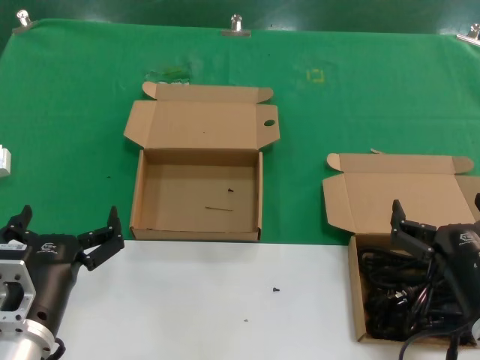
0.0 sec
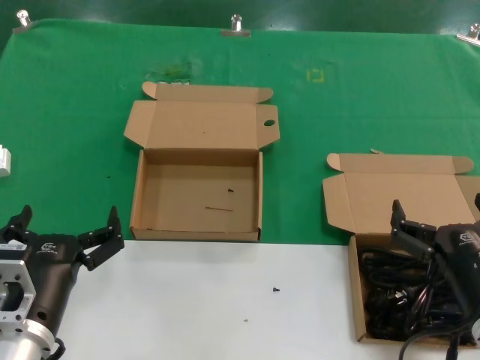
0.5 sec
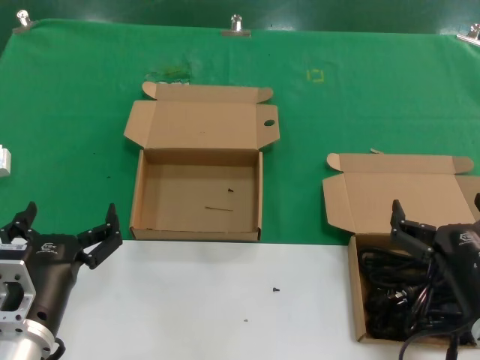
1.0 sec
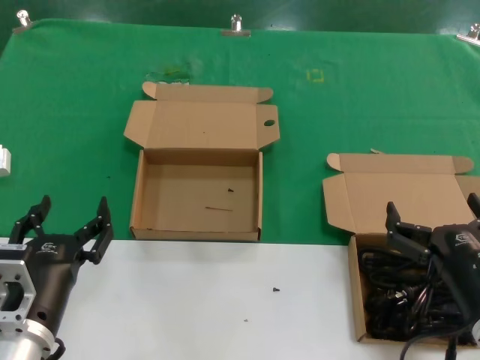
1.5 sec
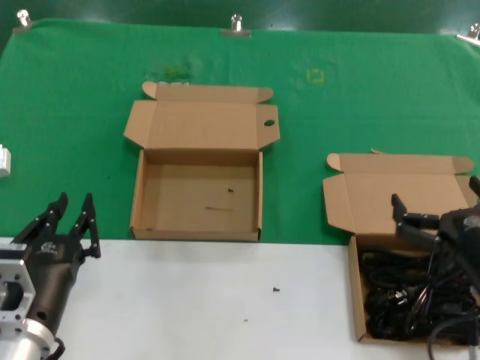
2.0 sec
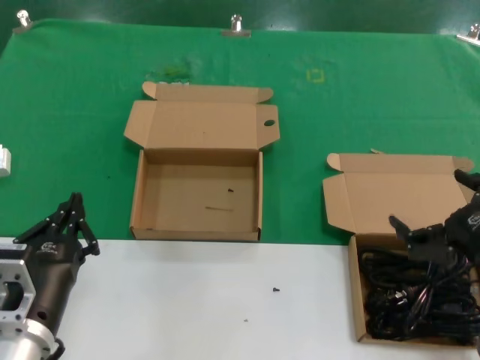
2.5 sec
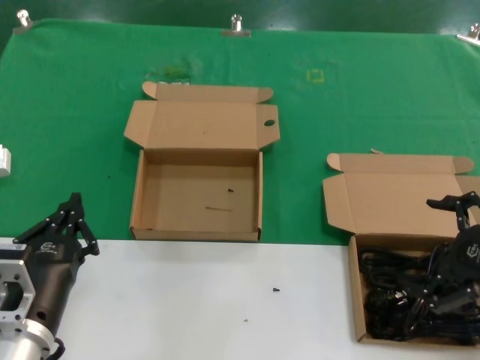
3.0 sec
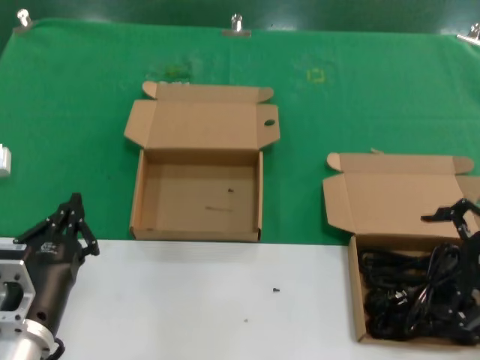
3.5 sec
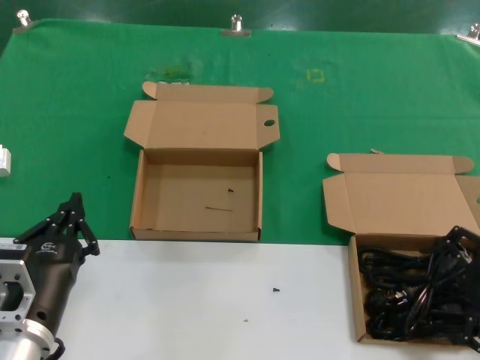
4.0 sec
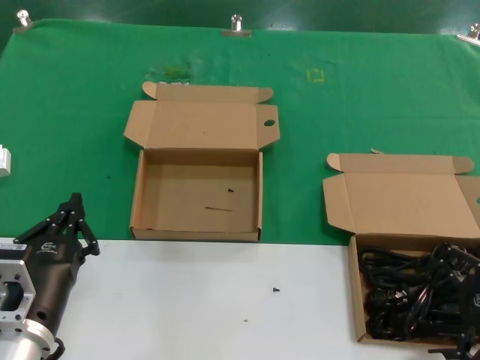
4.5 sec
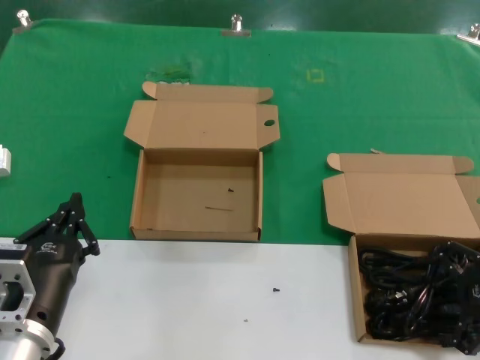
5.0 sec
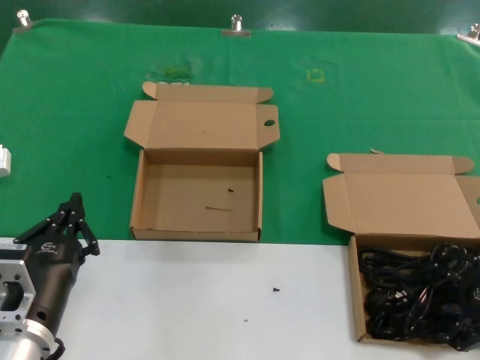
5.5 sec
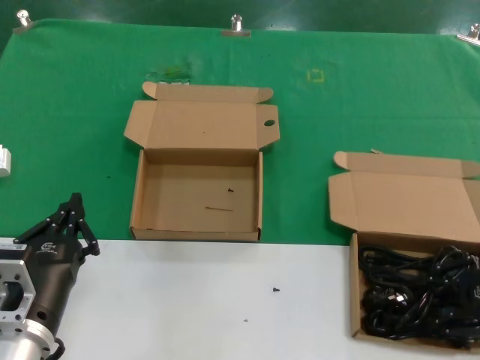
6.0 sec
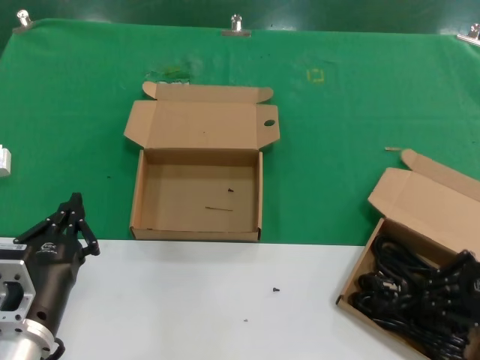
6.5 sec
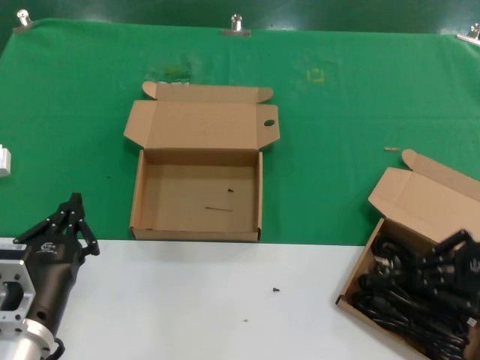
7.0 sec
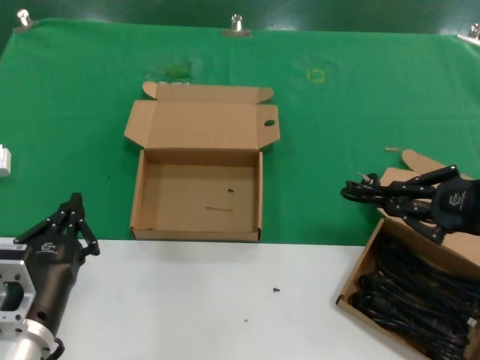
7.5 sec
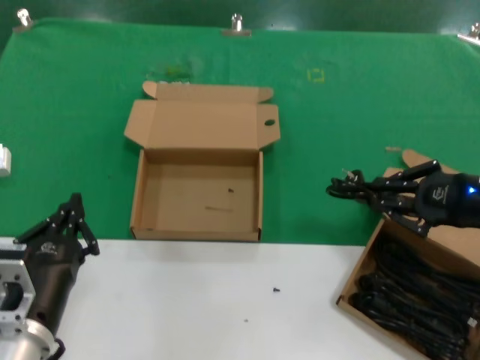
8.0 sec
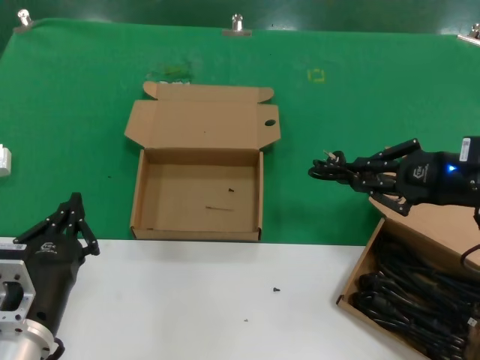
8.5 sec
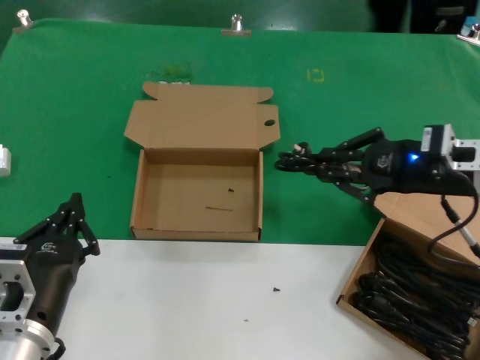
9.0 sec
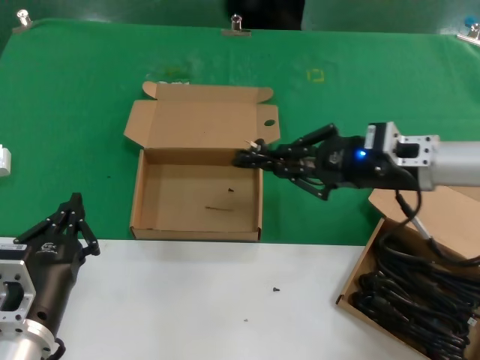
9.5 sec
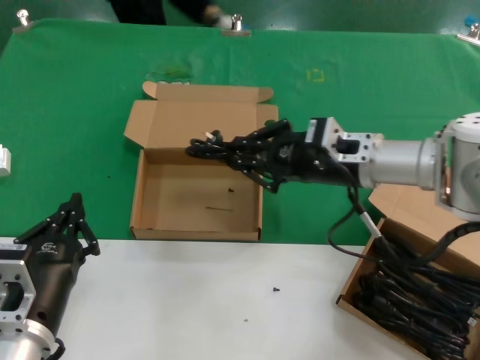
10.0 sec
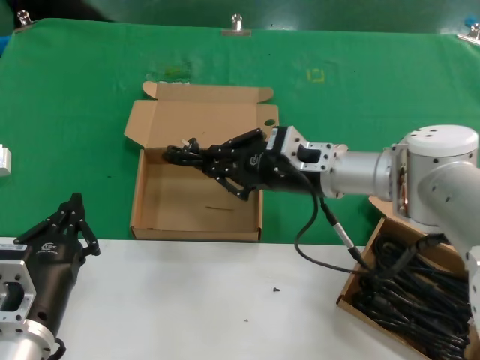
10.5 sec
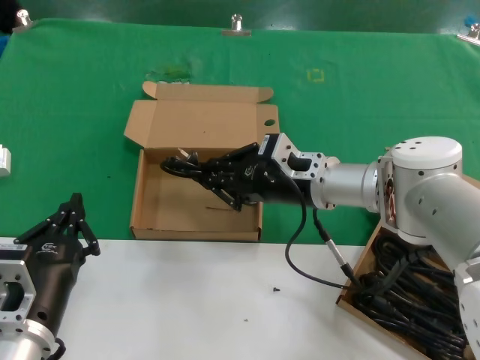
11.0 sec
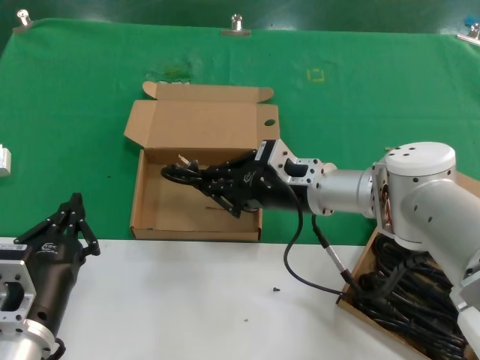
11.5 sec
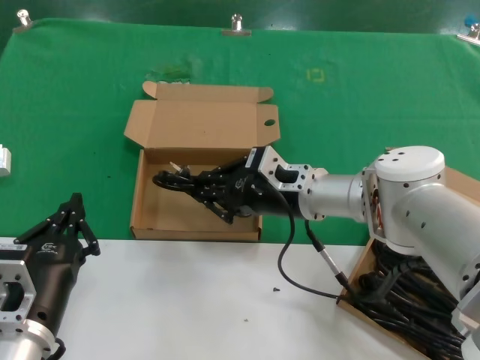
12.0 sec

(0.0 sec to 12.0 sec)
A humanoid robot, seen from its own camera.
Task of the whole recording: take the parts from the box containing them and put them into an empty box.
Step, 0.0 sec - 6.0 sec: Grasp the data cable.
0.0 sec - 2.0 sec: The hands move only a little.
2.0 sec - 4.0 sec: The right hand moves to the right, upward and forward, roughly 15 cm.
4.0 sec - 6.0 sec: The right hand shifts roughly 5 cm downward.
6.0 sec - 8.0 sec: The right hand goes some 5 cm upward.
8.0 sec - 10.0 sec: The right hand travels to the left and forward by roughly 20 cm.
10.0 sec - 12.0 sec: The right hand is displaced to the left by about 10 cm.

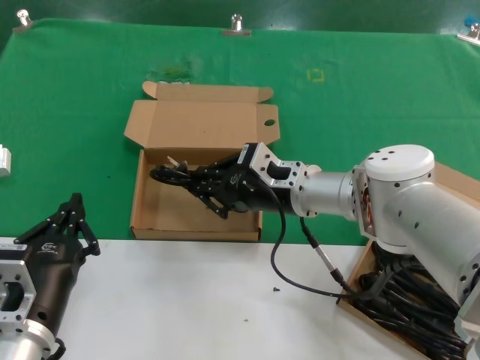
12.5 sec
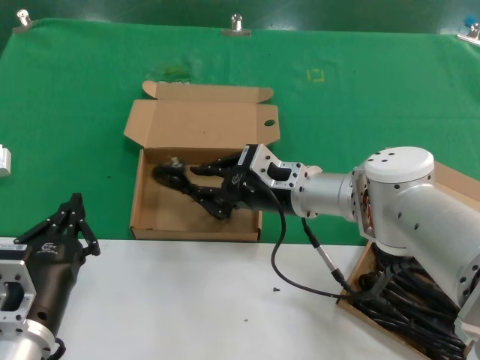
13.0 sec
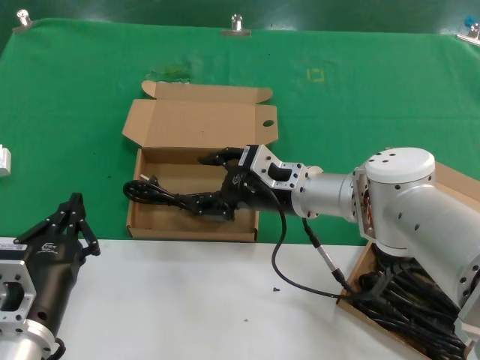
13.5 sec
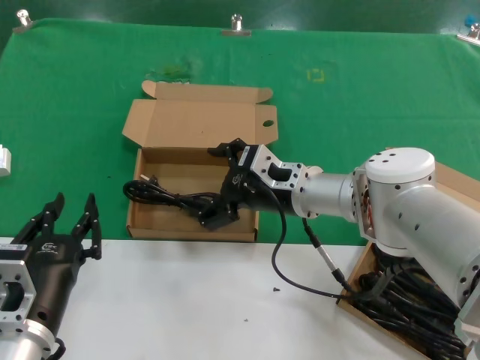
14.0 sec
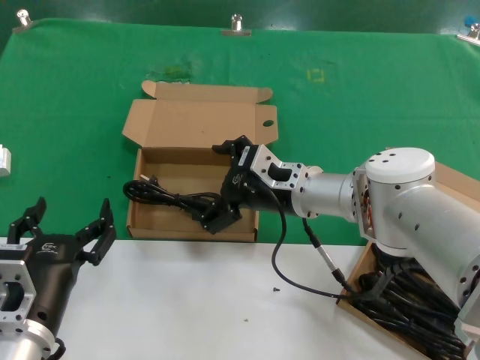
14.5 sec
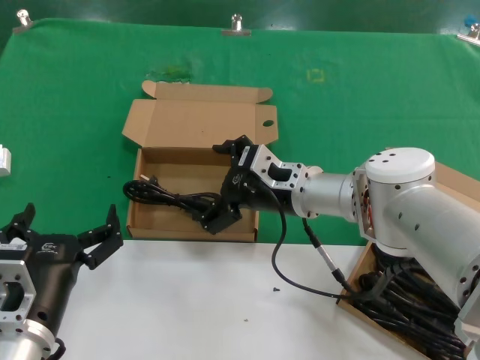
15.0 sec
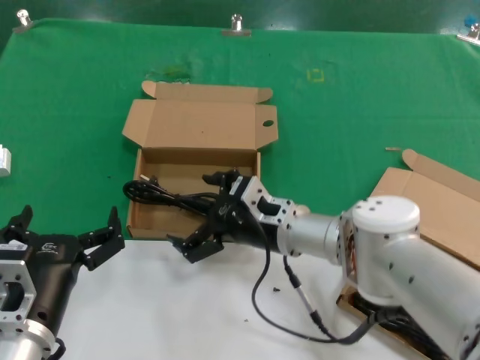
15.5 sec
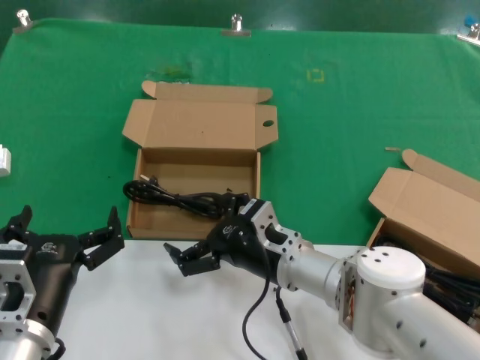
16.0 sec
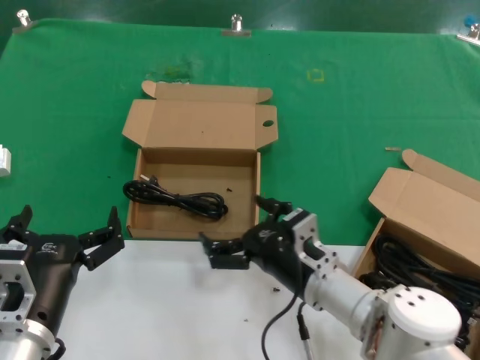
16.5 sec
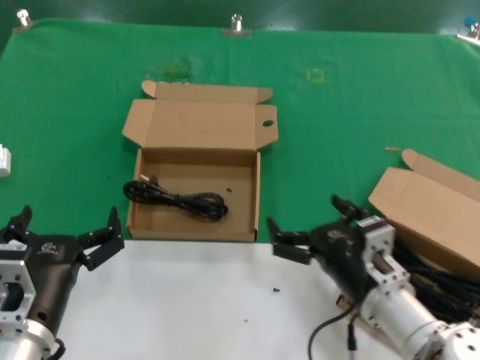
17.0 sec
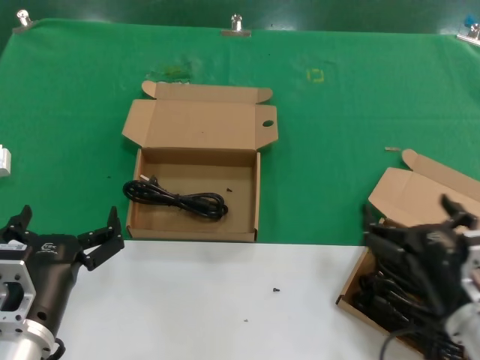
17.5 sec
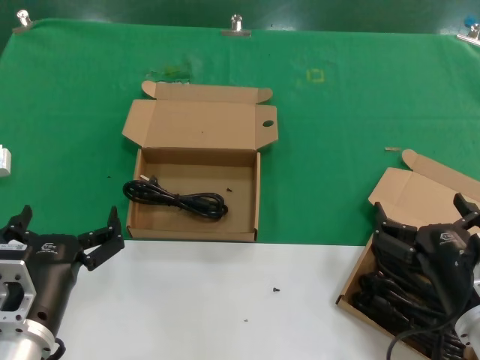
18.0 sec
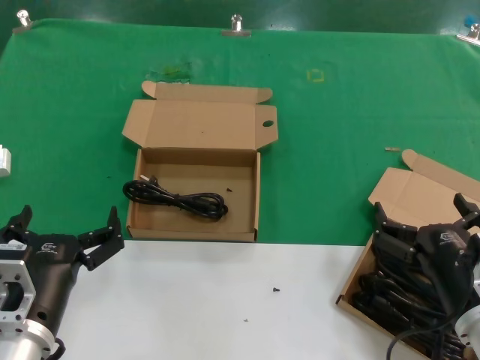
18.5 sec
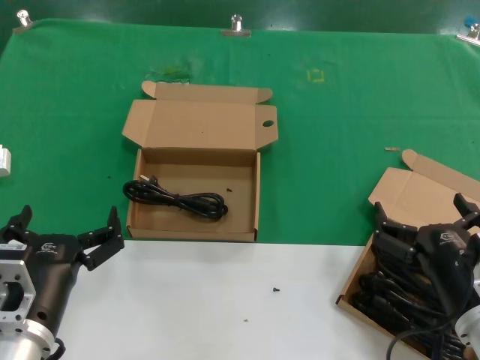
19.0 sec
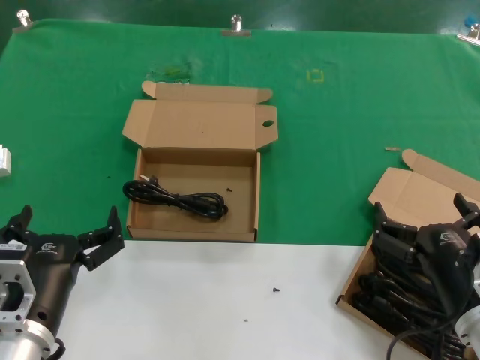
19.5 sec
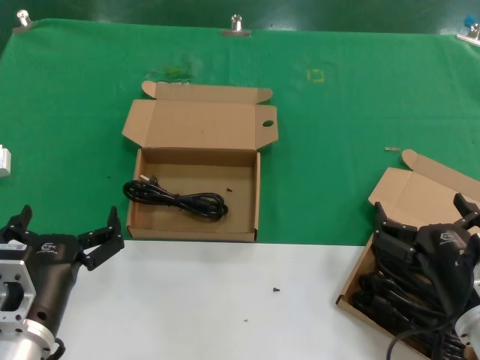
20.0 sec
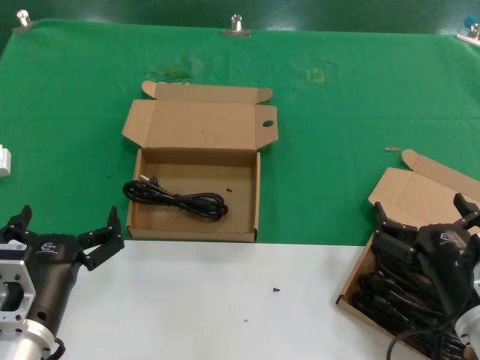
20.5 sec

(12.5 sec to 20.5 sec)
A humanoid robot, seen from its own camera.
Task of the whole recording: take the parts from the box containing them and put them into an empty box.
12.5 sec - 14.5 sec: Both hands stay about where they are.
14.5 sec - 16.5 sec: The right hand travels backward and downward by about 15 cm.
16.5 sec - 18.5 sec: The right hand moves to the right and backward, approximately 15 cm.
18.5 sec - 20.5 sec: The two hands keep their place.

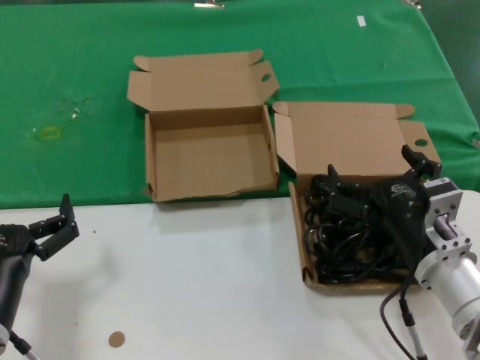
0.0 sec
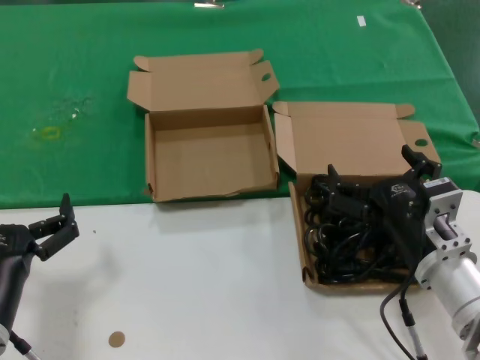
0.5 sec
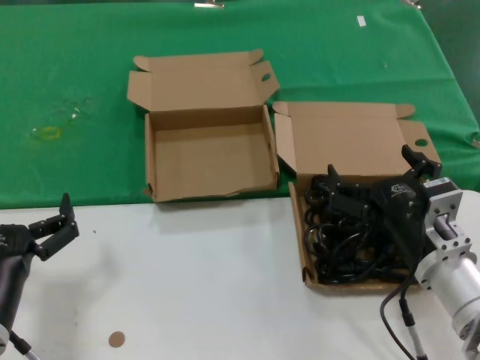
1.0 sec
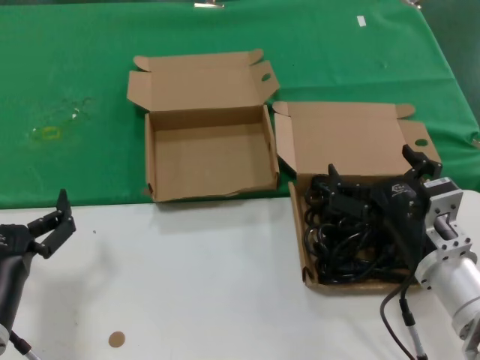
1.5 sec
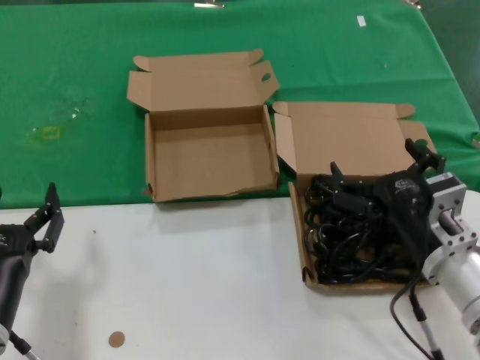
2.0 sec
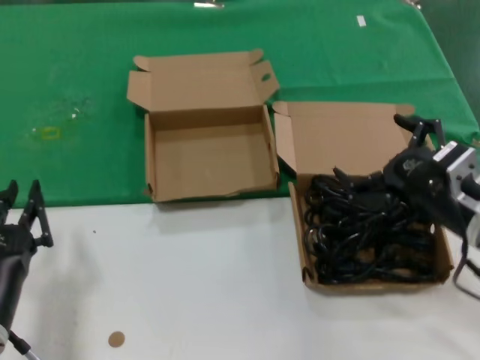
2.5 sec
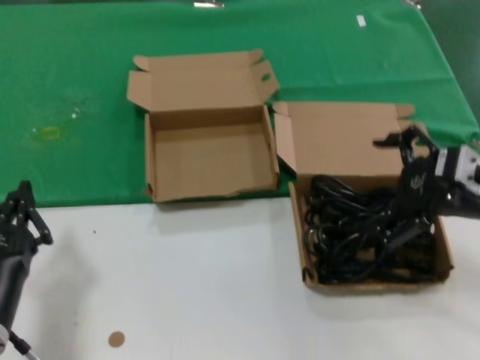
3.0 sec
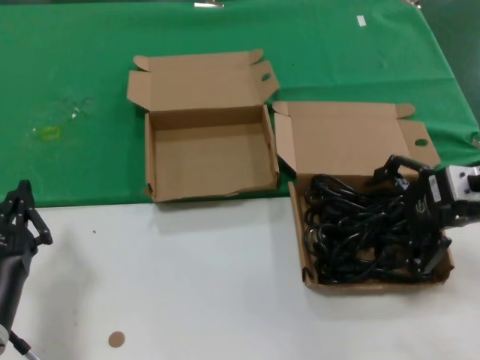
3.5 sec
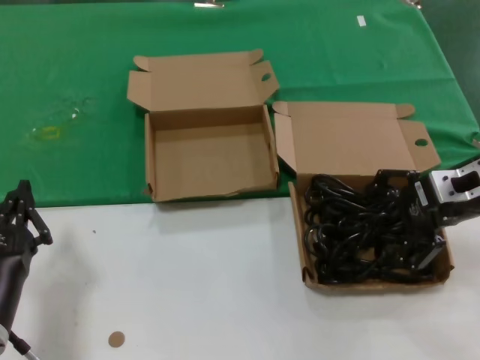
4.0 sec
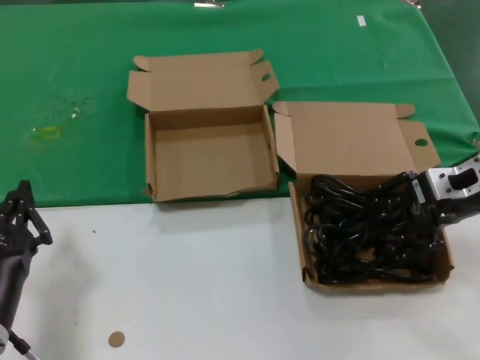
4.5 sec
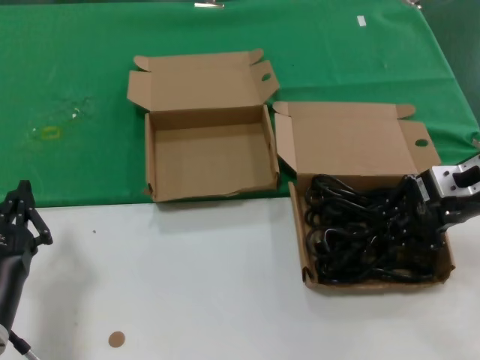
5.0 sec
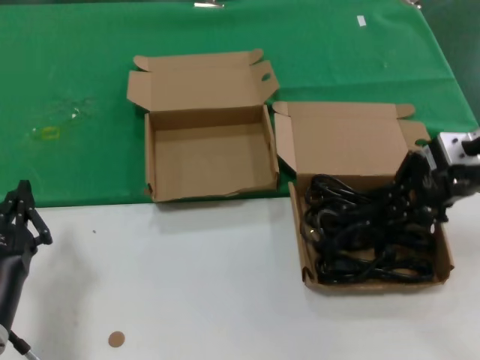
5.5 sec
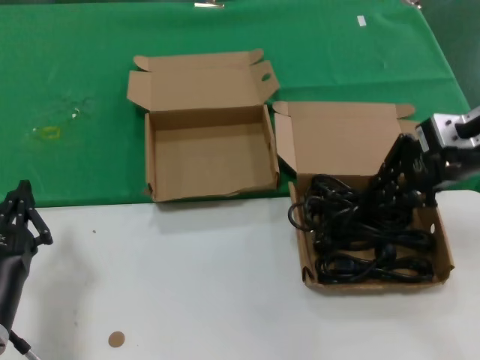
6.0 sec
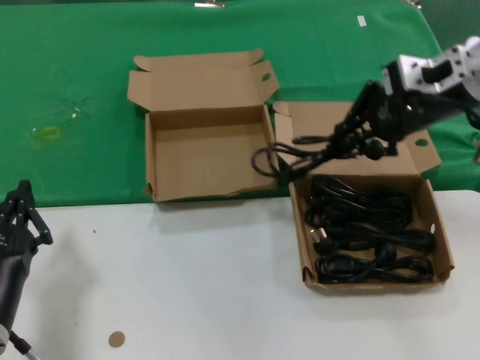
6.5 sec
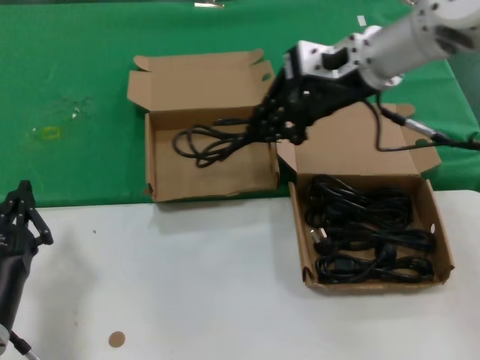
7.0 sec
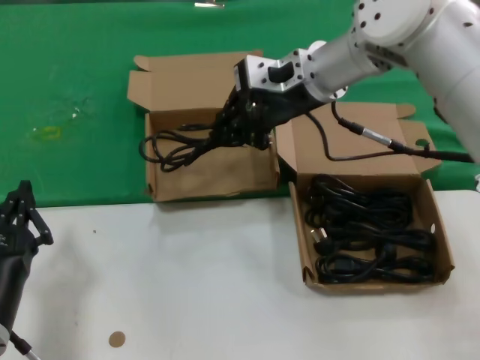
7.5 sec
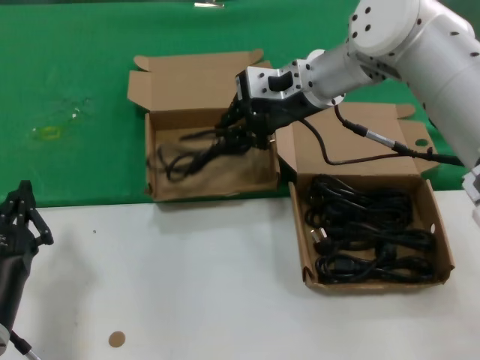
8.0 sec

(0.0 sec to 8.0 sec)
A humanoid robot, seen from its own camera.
Task of the whole recording: take the parts from the box containing them and put them into an empty box.
Step, 0.0 sec - 4.5 sec: Grasp the data cable.
0.0 sec - 2.0 sec: Both hands stay put.
2.0 sec - 4.0 sec: The right hand moves upward, forward and to the right, about 20 cm.
4.0 sec - 6.0 sec: The right hand heads upward, covering about 5 cm.
6.0 sec - 8.0 sec: The right hand moves to the left and forward, about 20 cm.
